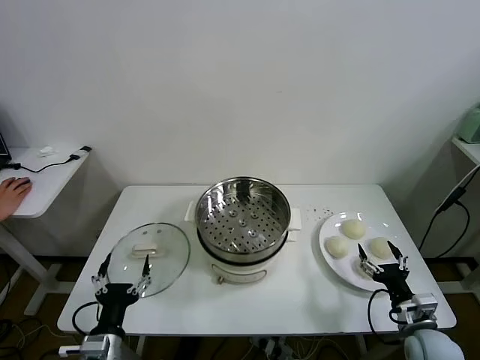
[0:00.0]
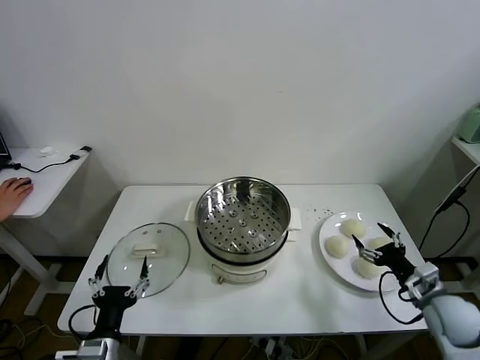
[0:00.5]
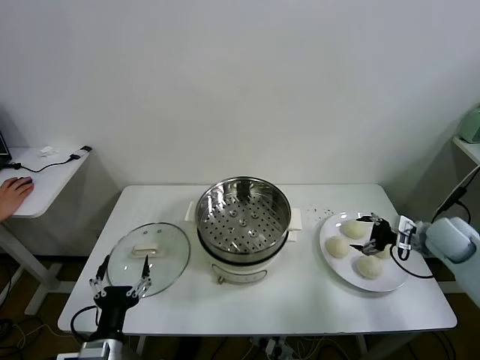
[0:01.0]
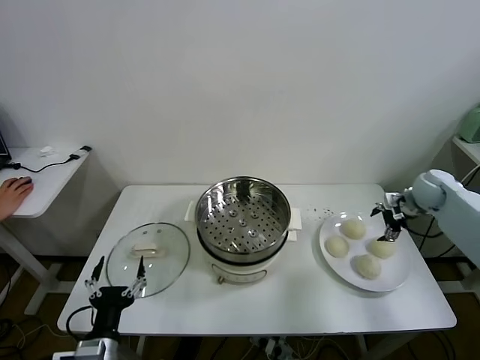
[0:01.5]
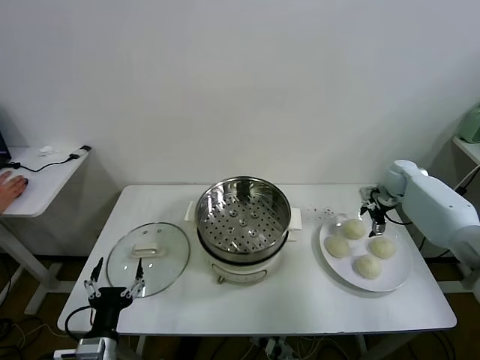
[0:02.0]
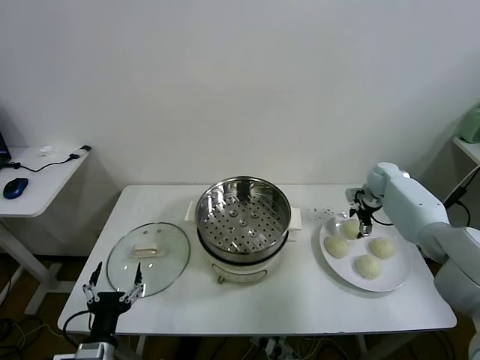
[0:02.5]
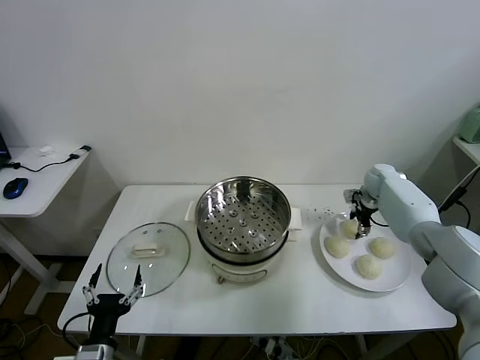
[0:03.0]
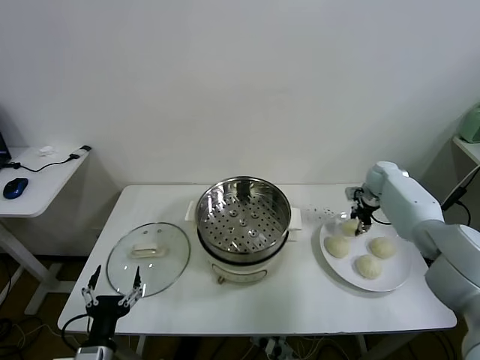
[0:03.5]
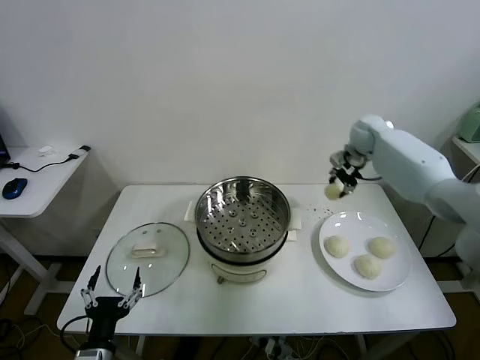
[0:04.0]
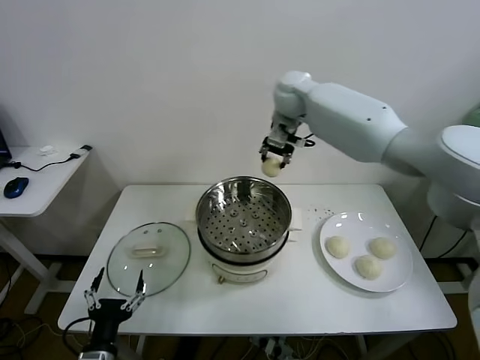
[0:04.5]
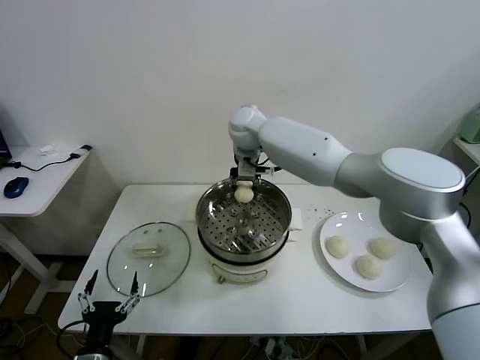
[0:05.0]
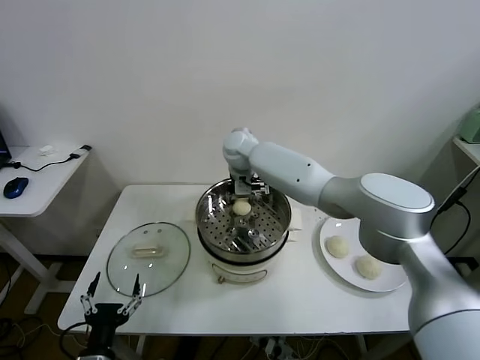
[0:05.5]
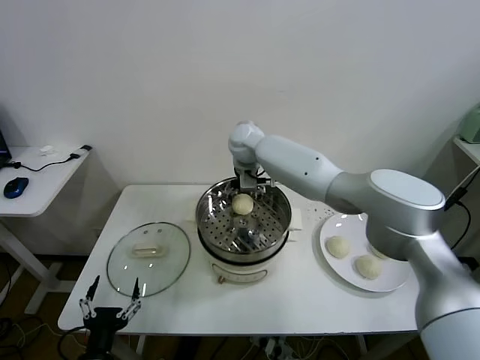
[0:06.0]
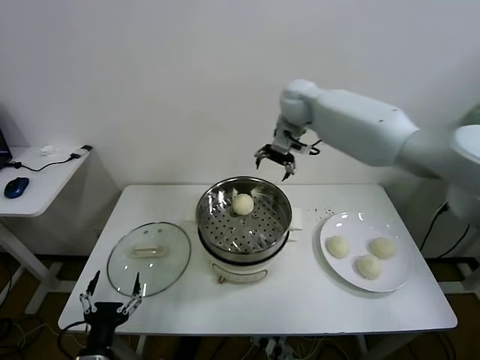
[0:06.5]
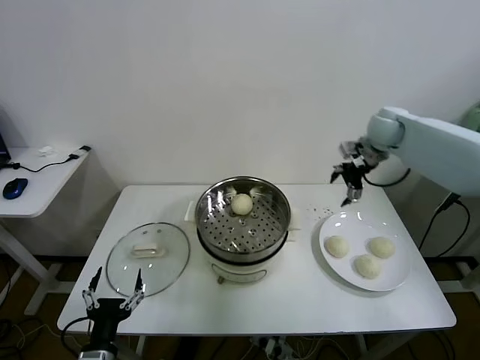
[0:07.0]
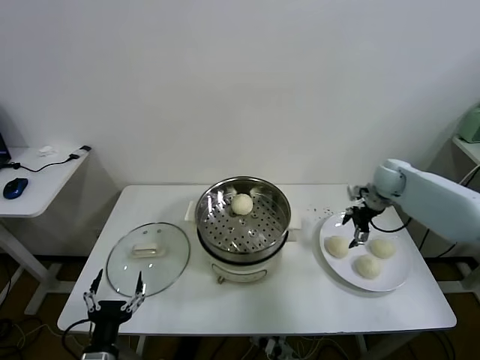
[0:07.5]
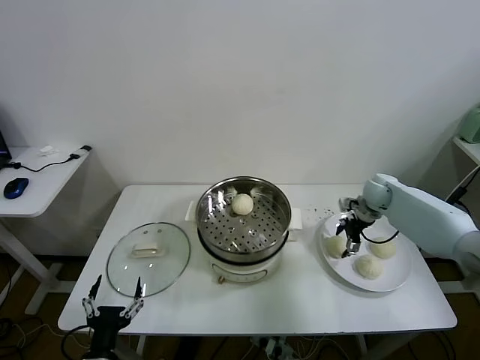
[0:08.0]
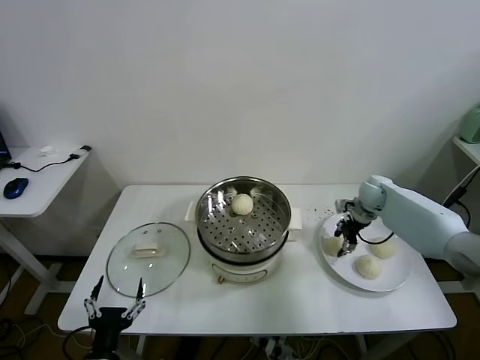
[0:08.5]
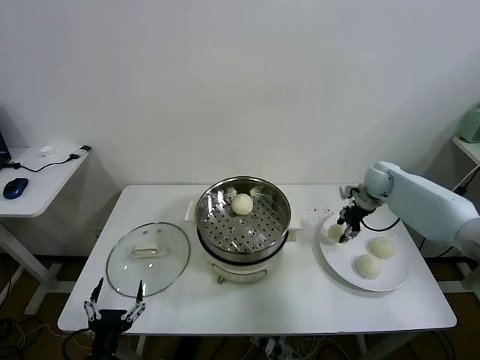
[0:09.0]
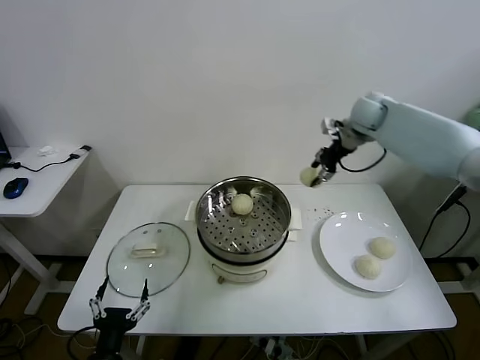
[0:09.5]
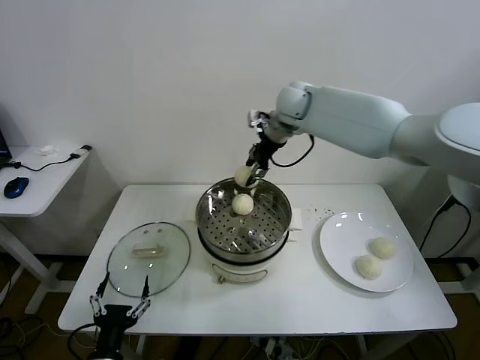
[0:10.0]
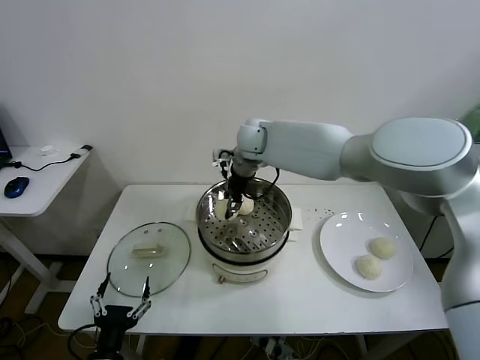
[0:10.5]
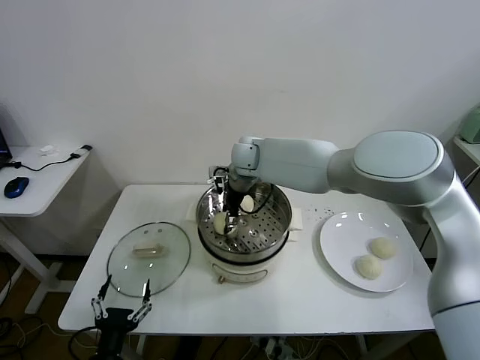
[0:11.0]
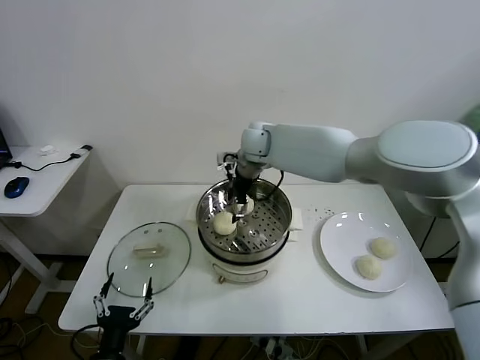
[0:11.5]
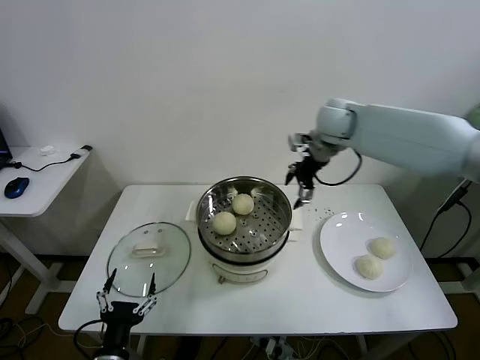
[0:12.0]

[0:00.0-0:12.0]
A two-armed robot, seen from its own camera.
Task of the whole recording: take steamed baozi put them in steamer.
Step, 0:00.0 to 0:03.0: Grasp the baozi in the plate with right gripper.
Step, 0:03.5 to 0:05.5: Place the baozi on the steamer with right gripper.
Step, 0:06.5 to 0:08.0: Grasp the baozi in the plate with right gripper.
Step, 0:08.5 to 0:11.0: Place the baozi on the steamer with right gripper.
0:02.0 to 0:04.0: The right gripper travels upward and to the left by about 25 cm, and closes up.
0:04.0 to 0:06.0: The right gripper heads to the left, covering roughly 25 cm, and opens its fingers.
0:06.0 to 0:08.0: The right gripper heads to the right and downward, covering roughly 40 cm.
0:08.0 to 0:10.0: The right gripper travels to the left and upward by some 35 cm, and closes up.
0:10.0 to 0:12.0: The right gripper moves to the right, approximately 15 cm, and opens up.

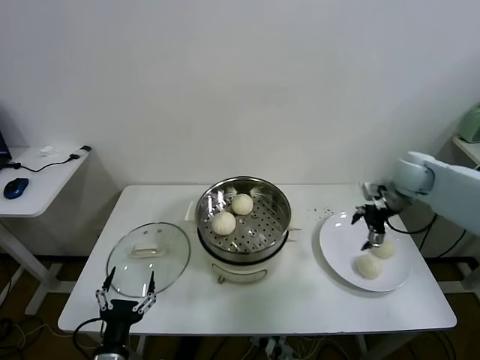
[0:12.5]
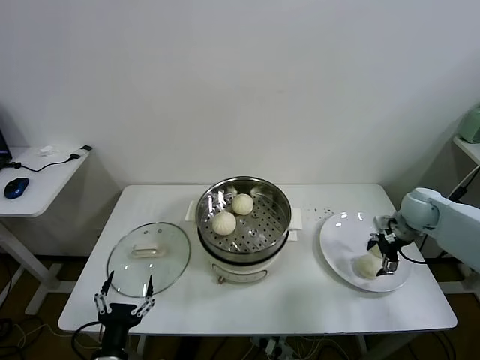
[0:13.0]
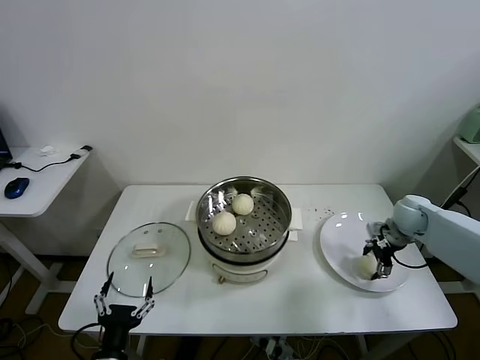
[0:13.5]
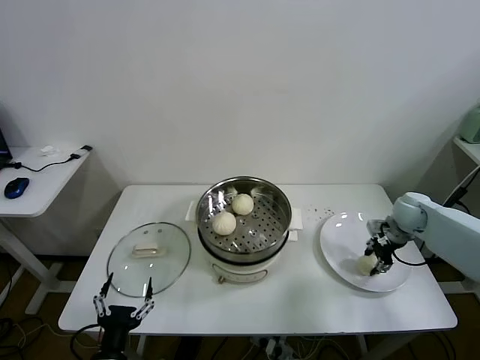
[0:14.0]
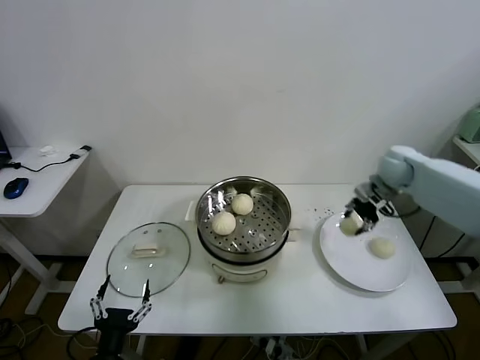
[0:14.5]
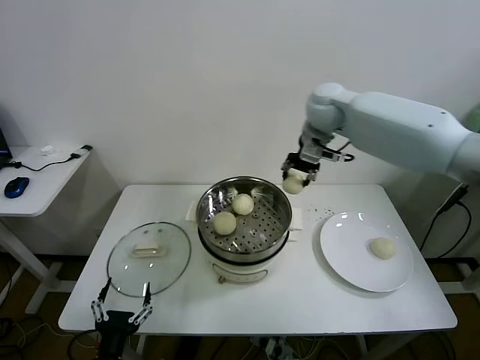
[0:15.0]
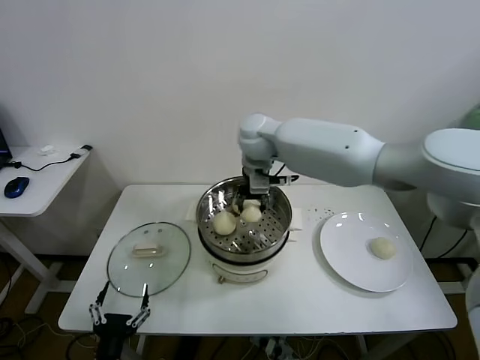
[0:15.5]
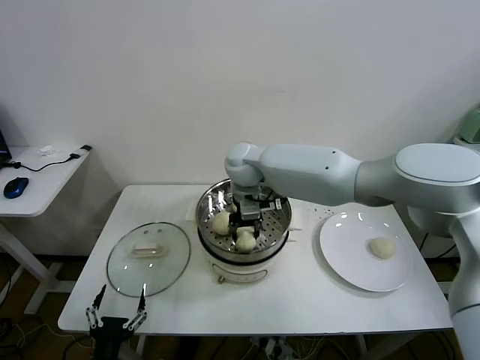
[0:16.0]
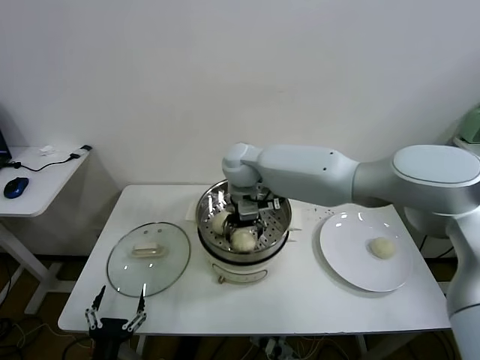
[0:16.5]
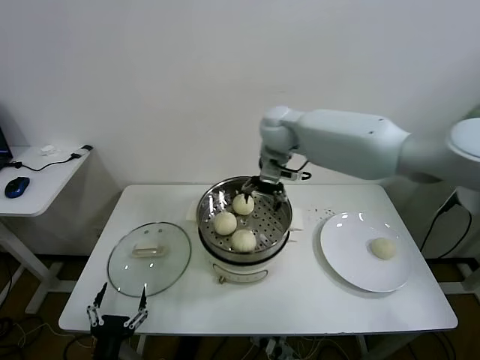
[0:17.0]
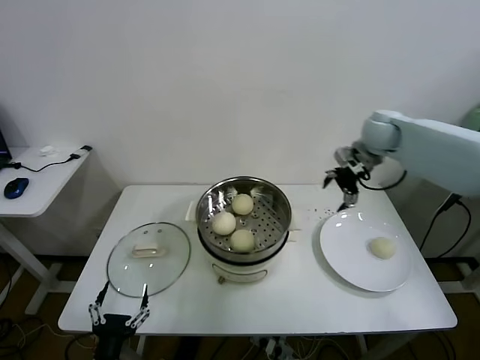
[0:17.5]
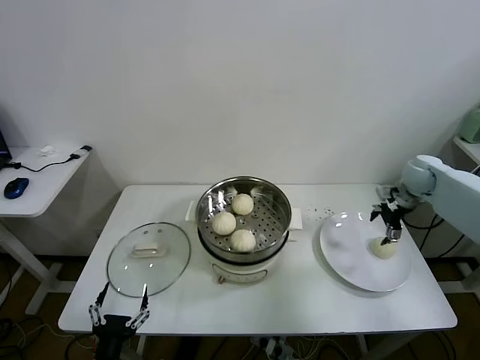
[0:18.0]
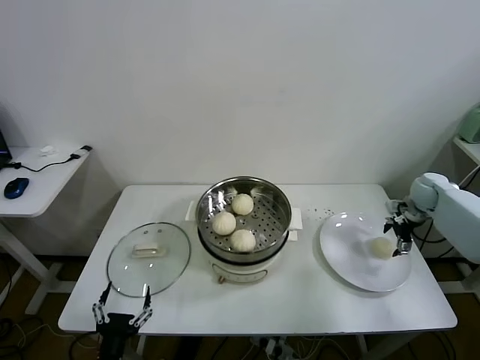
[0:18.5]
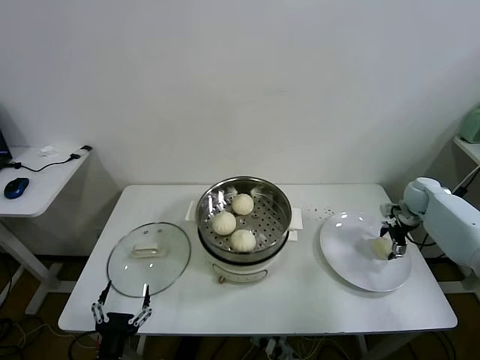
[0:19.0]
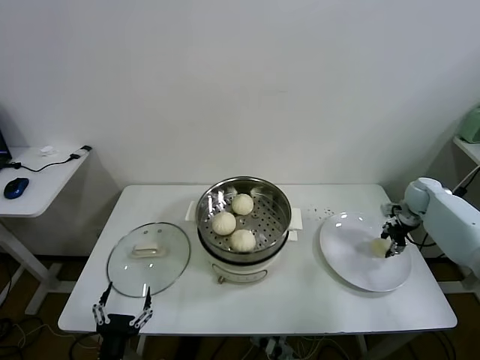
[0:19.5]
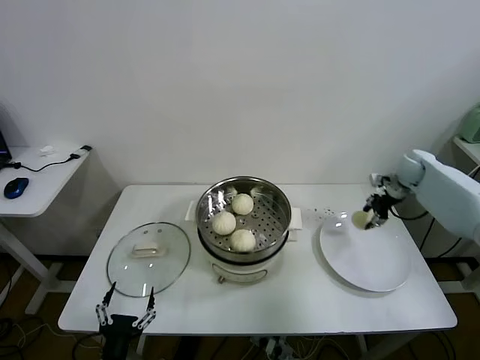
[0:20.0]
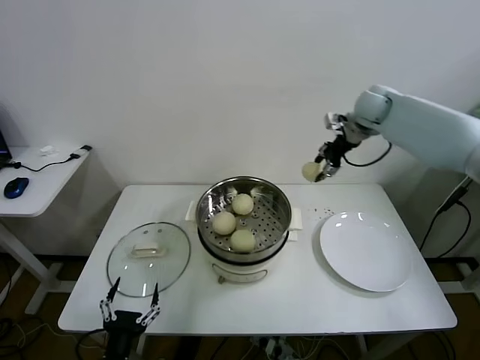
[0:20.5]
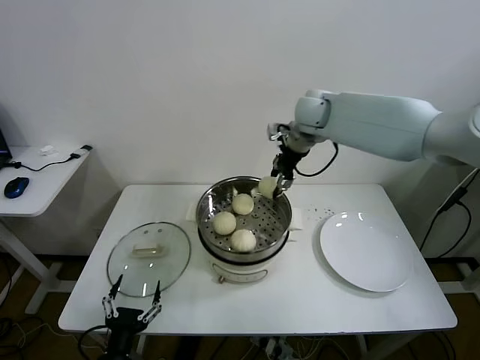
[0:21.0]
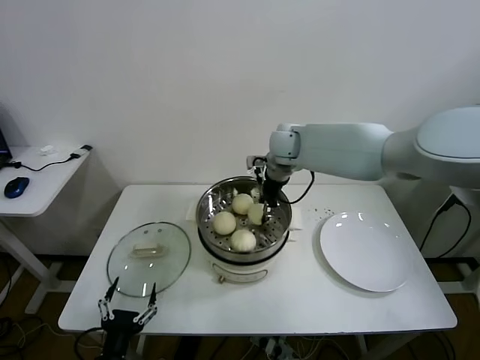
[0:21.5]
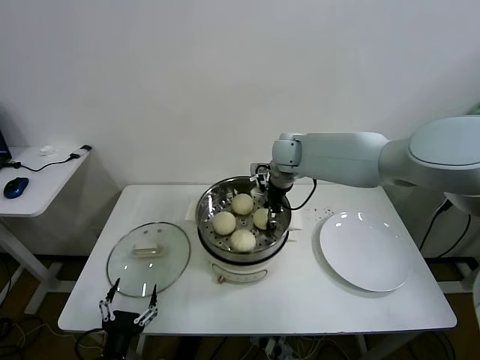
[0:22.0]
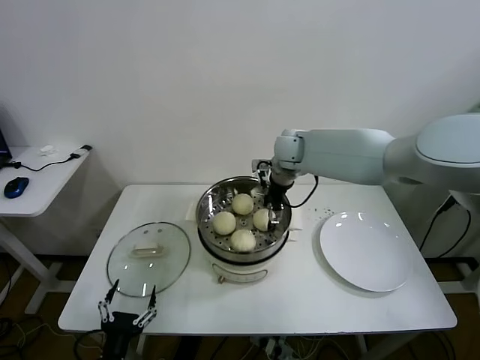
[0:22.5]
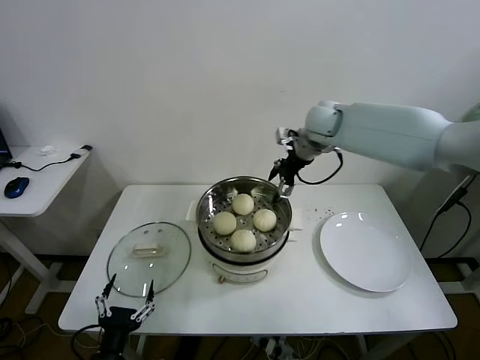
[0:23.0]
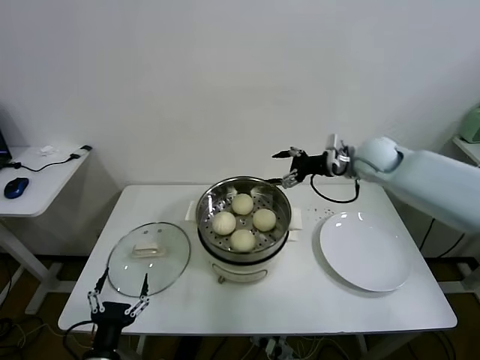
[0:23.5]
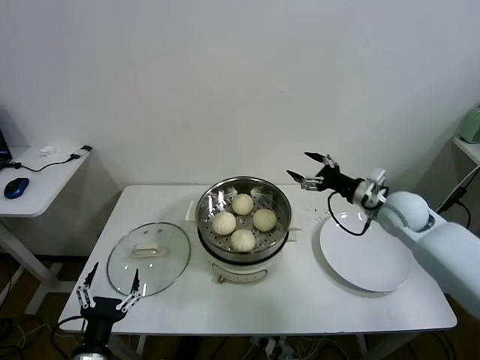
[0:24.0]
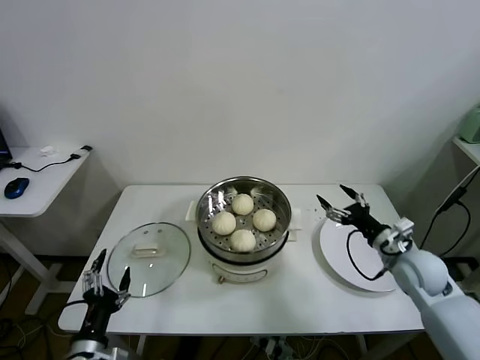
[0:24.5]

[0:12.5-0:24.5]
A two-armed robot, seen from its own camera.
Task of the whole recording: take steamed baozi put them in steamer.
Step, 0:14.0 to 0:16.5: Place the baozi on the steamer with right gripper.
Step, 0:17.0 to 0:19.0: Grasp the baozi in the plate with right gripper.
Step, 0:19.5 to 0:22.0: Place the baozi on the steamer with right gripper.
0:12.5 to 0:14.5: The right gripper is displaced forward and to the left by some 10 cm, goes downward and returns, about 10 cm each way, and closes up.
0:14.5 to 0:16.5: The right gripper is displaced to the left by roughly 35 cm, and opens.
0:16.5 to 0:18.5: The right gripper heads to the right, covering roughly 50 cm.
0:18.5 to 0:20.5: The right gripper shifts roughly 30 cm upward and to the left, and closes its fingers.
0:20.5 to 0:22.5: The right gripper shifts some 20 cm to the left and downward, and opens up.
0:22.5 to 0:24.5: The left gripper moves some 5 cm, while the right gripper goes approximately 40 cm to the right, backward and downward.

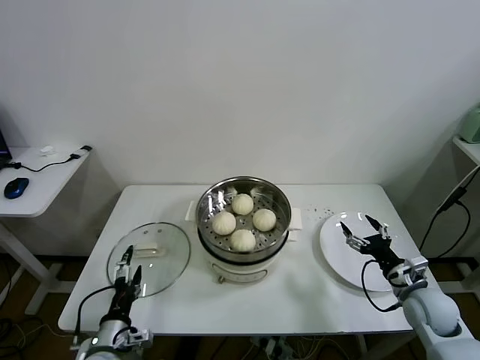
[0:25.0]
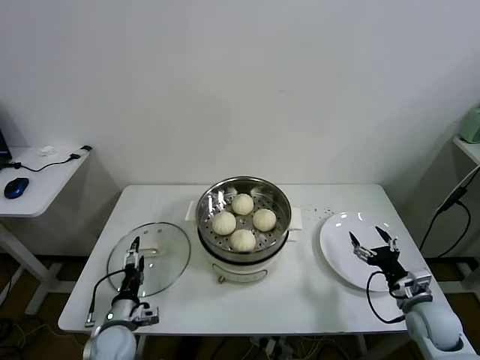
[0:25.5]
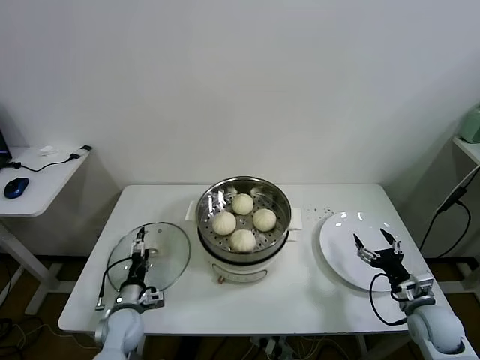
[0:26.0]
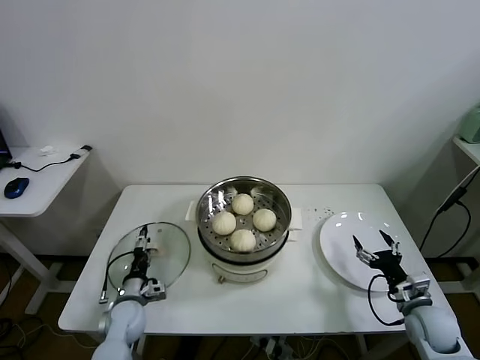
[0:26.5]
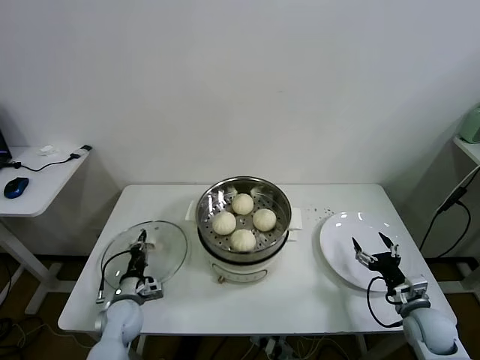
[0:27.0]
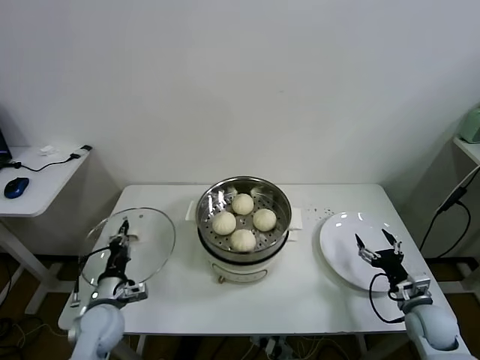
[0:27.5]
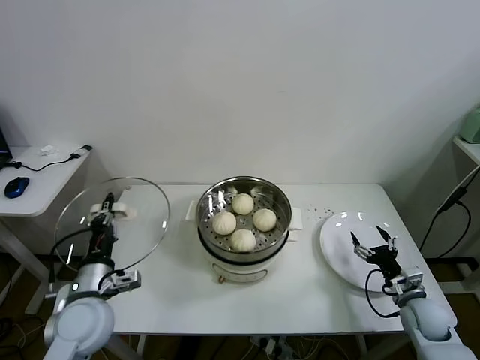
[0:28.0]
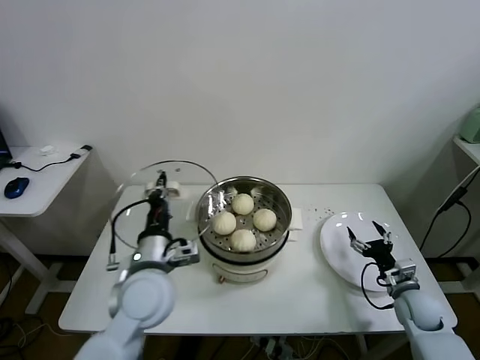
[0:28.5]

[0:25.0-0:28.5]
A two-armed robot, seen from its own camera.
Task of the whole recording: take steamed baozi put them in steamer.
Step, 0:25.0 to 0:27.0: Grasp the pot lid with left gripper.
0:25.0 to 0:27.0: The right gripper moves downward, some 5 cm. Meanwhile the left gripper travels forward and downward by about 15 cm, and closes.
0:27.0 to 0:28.5: The left gripper is displaced upward and to the right by approximately 25 cm.
